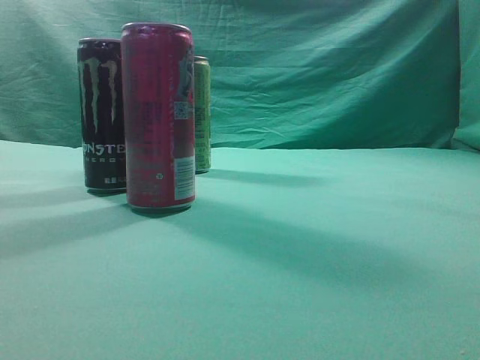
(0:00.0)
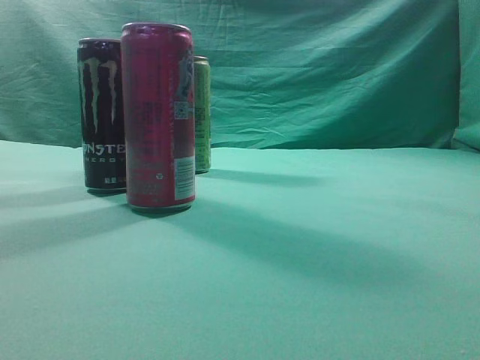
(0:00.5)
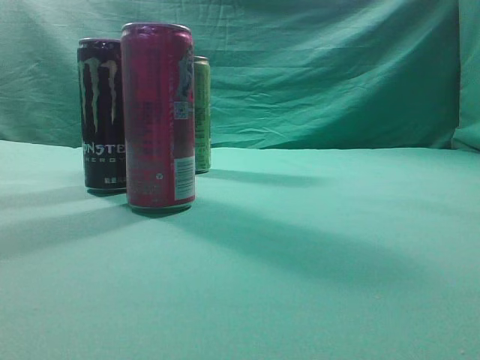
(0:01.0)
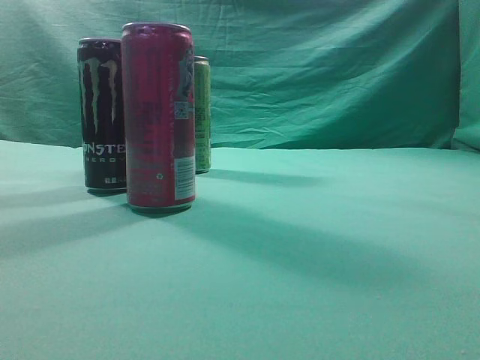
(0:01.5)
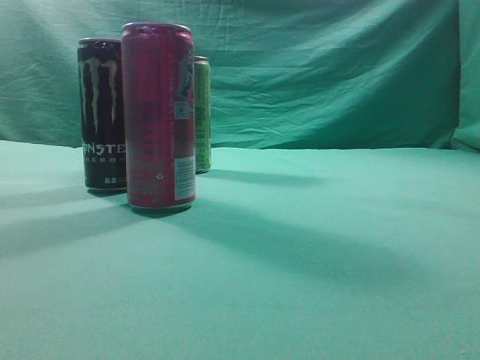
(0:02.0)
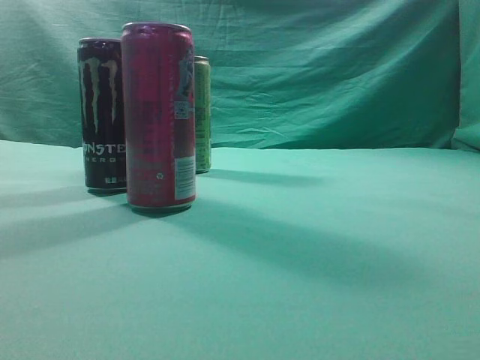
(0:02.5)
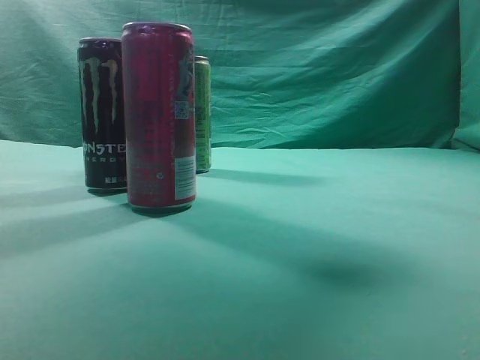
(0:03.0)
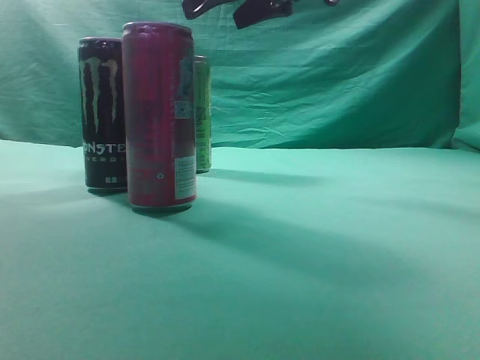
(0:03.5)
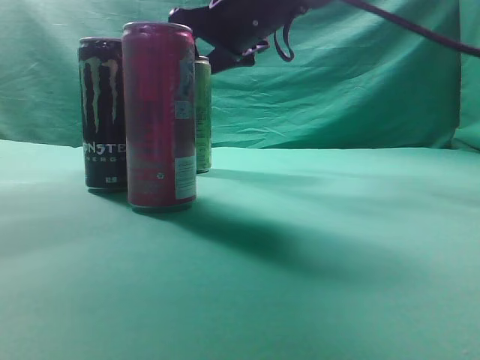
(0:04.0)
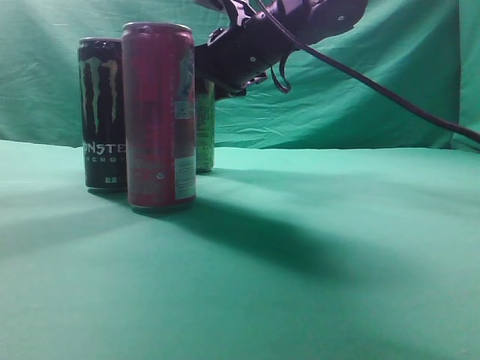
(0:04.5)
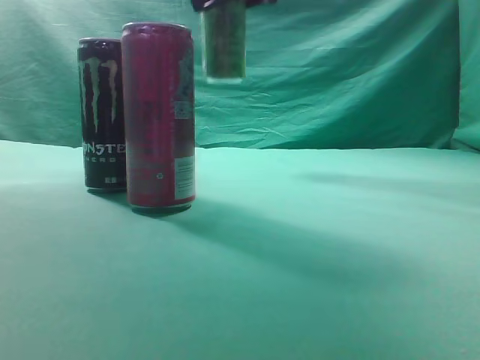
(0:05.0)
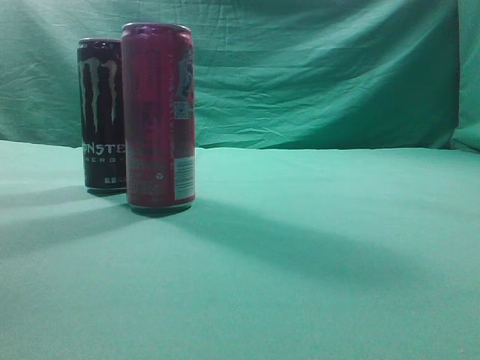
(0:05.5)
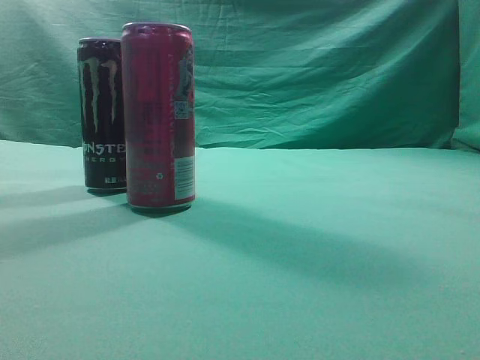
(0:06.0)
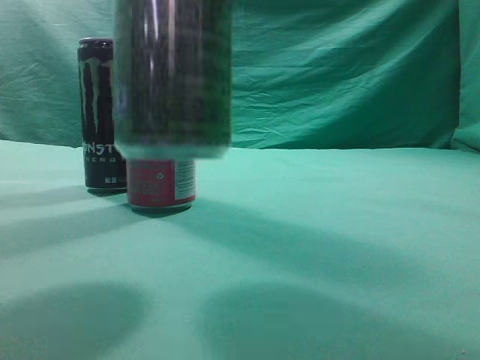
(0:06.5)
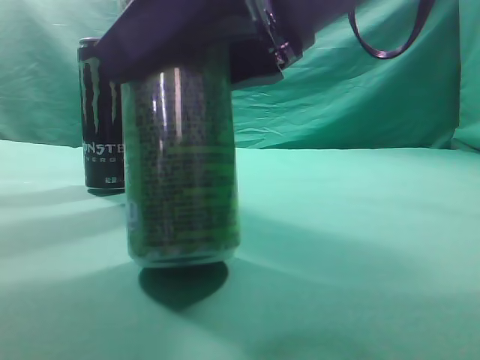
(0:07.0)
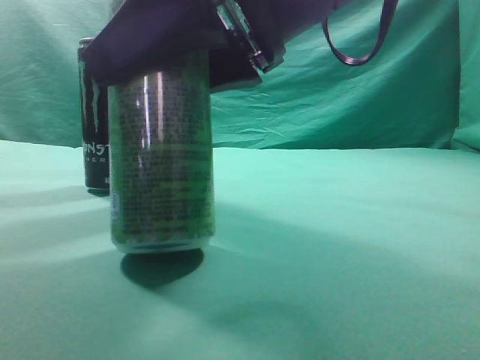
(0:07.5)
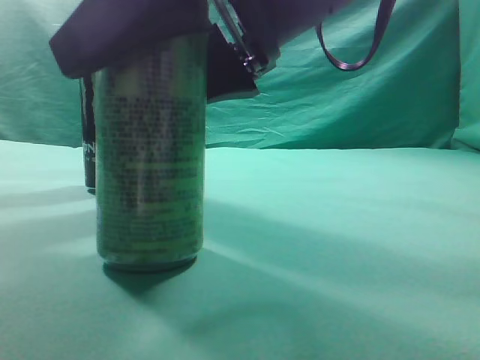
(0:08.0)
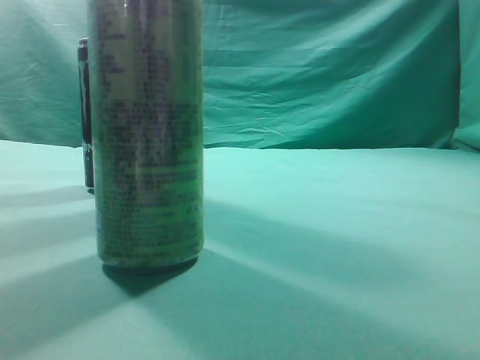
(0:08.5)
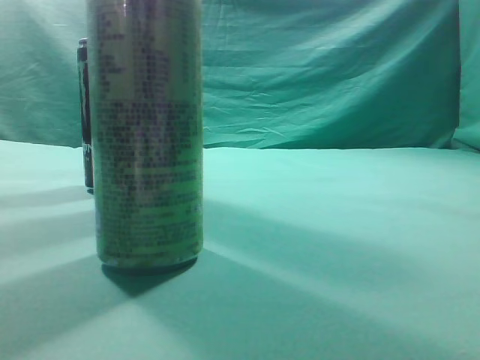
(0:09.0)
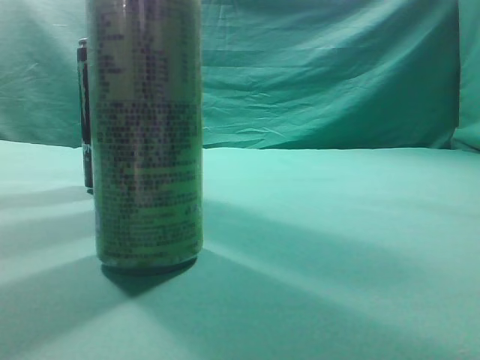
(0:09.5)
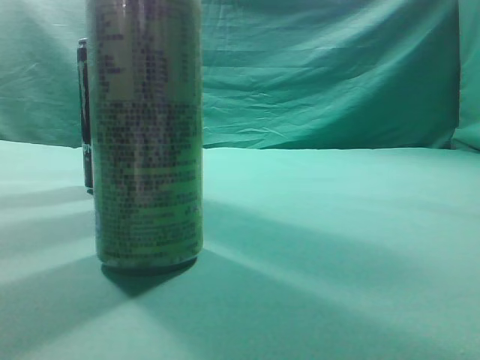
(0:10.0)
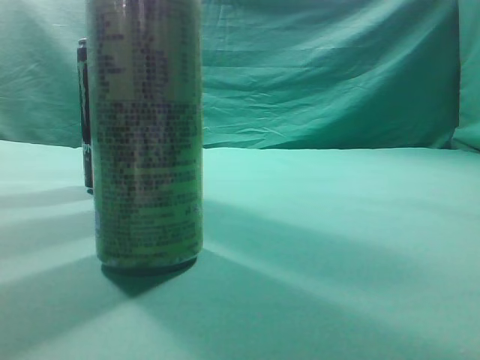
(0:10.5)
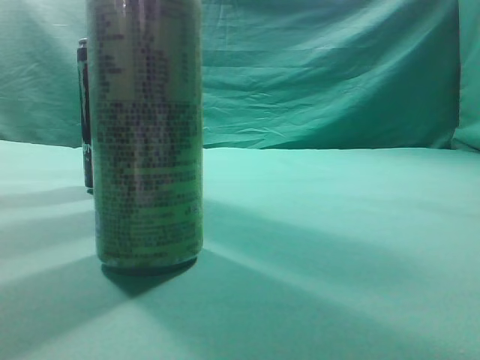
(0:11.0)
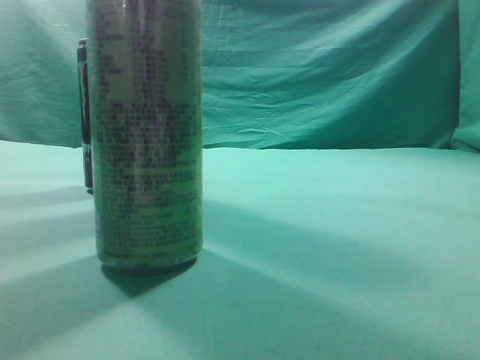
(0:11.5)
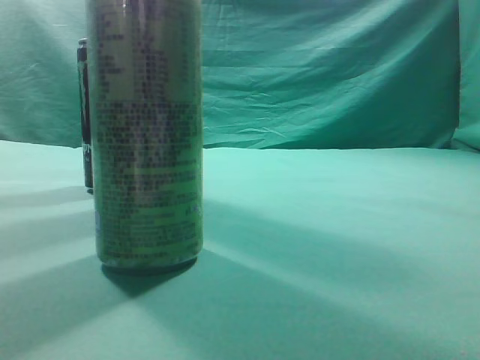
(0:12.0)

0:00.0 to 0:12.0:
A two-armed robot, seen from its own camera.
Task of the whole recording: move one drink among three beverages.
Step, 0:00.0 to 0:04.5: Grasp the beverage bottle placed at the back of the desk.
Step, 0:05.0 to 0:08.5: Place the beverage bottle to the front of the table.
0:02.0 to 0:04.0: The right gripper shifts approximately 50 cm forward and to the left, and opens up.
0:04.0 to 0:06.0: The right gripper travels backward, to the right and upward by approximately 30 cm.
0:06.0 to 0:08.0: The right gripper travels downward and to the left by approximately 15 cm.
0:08.0 to 0:10.0: The right gripper heads to the right, backward and upward, covering approximately 35 cm, and closes its fingers.
